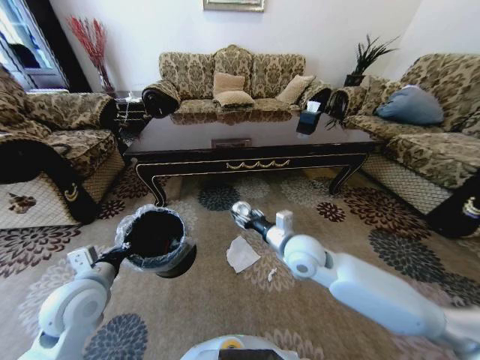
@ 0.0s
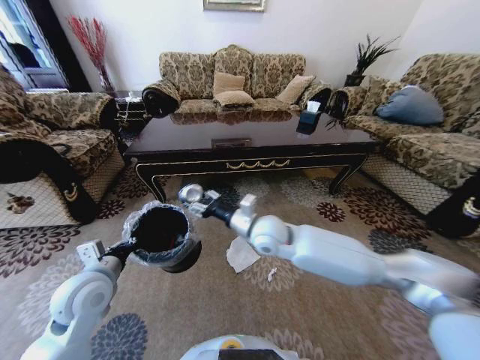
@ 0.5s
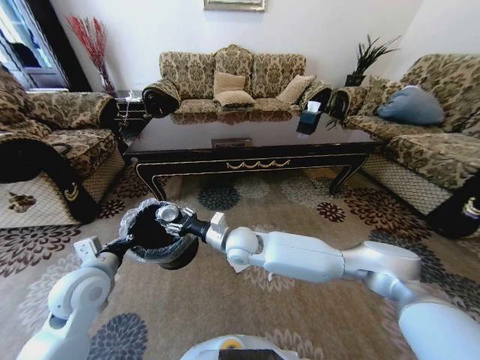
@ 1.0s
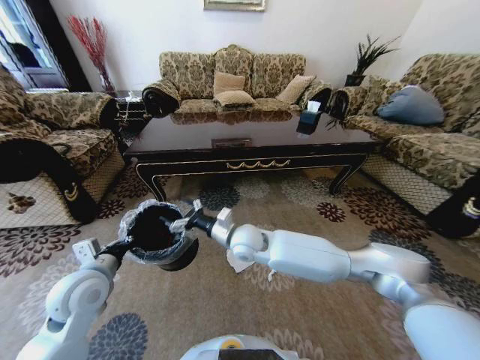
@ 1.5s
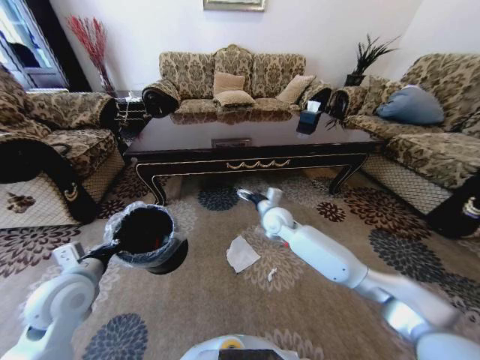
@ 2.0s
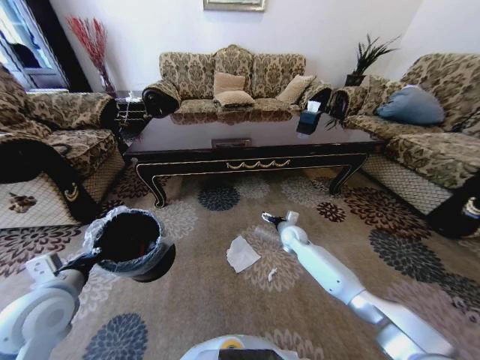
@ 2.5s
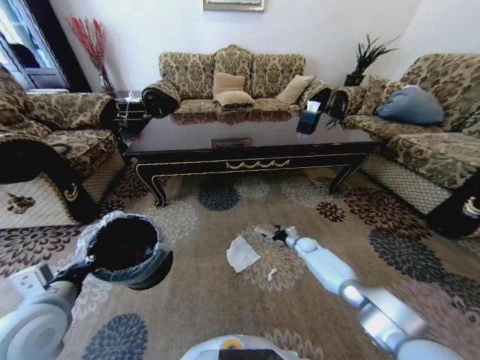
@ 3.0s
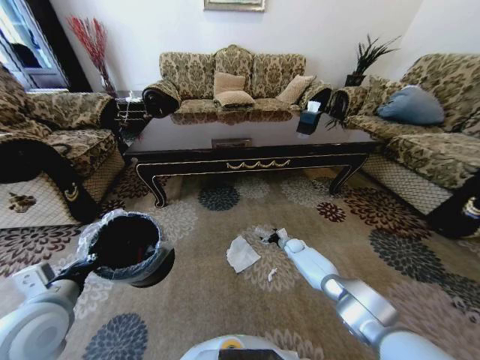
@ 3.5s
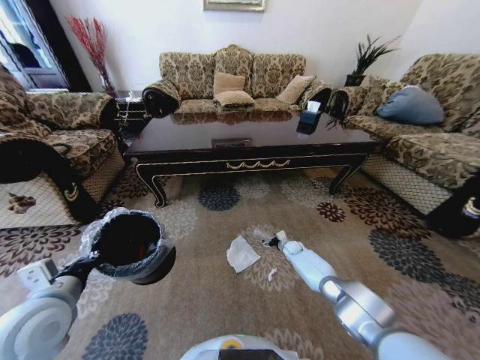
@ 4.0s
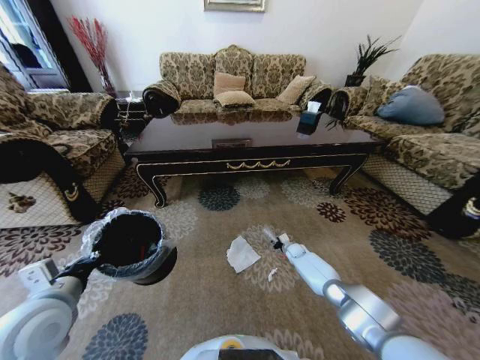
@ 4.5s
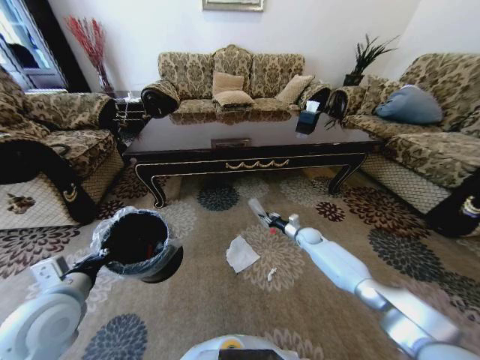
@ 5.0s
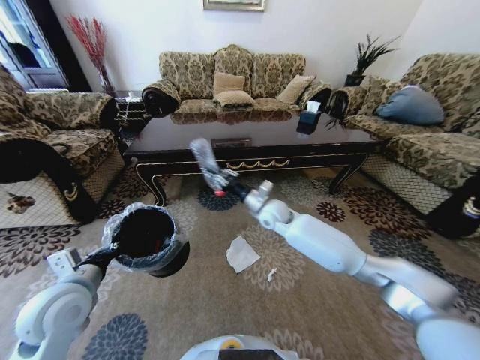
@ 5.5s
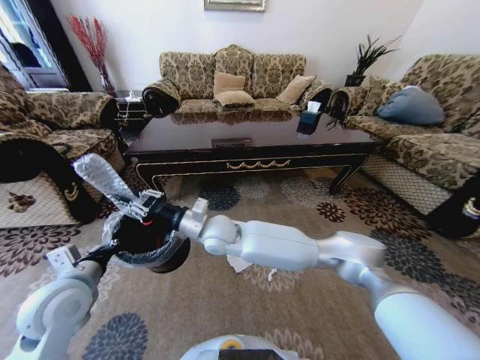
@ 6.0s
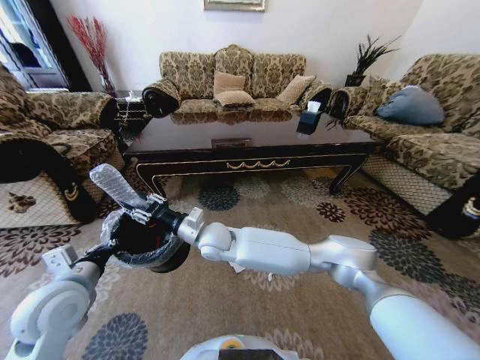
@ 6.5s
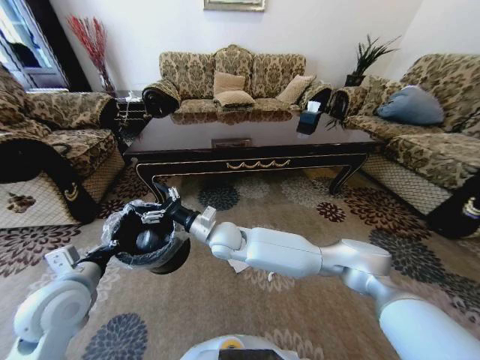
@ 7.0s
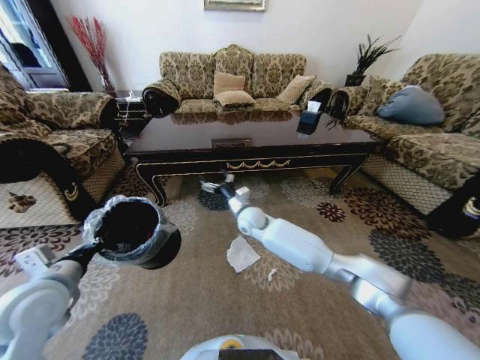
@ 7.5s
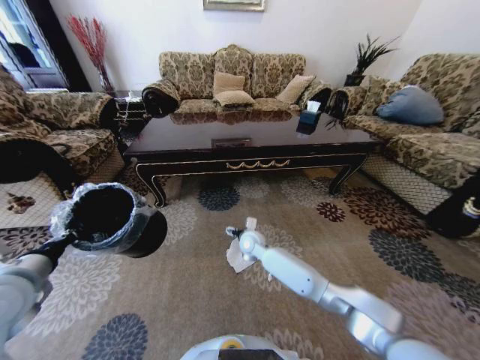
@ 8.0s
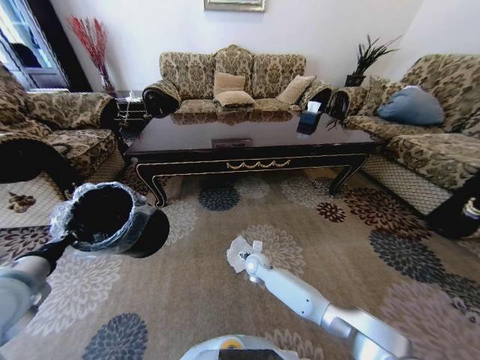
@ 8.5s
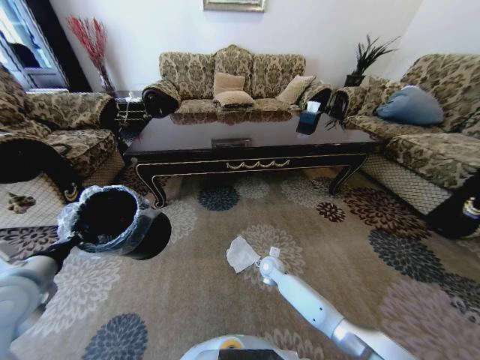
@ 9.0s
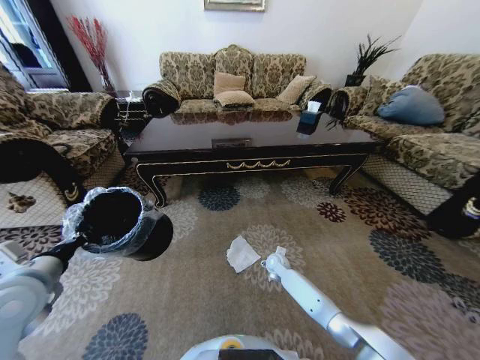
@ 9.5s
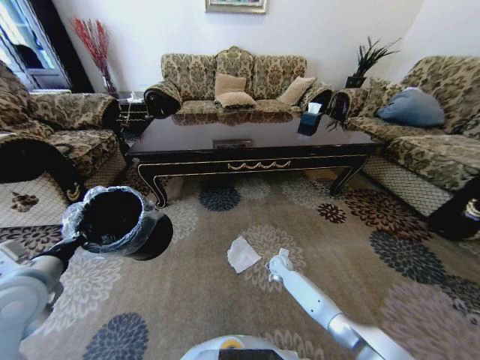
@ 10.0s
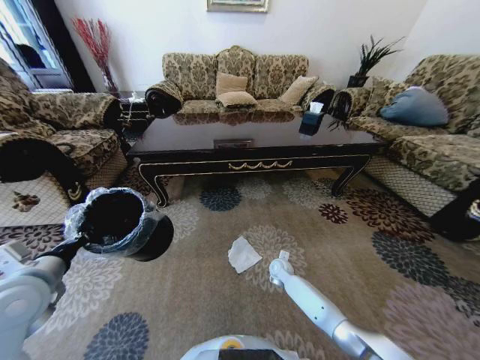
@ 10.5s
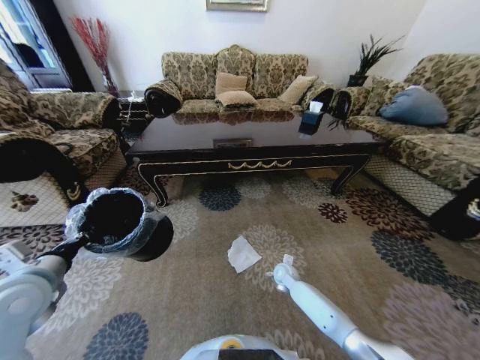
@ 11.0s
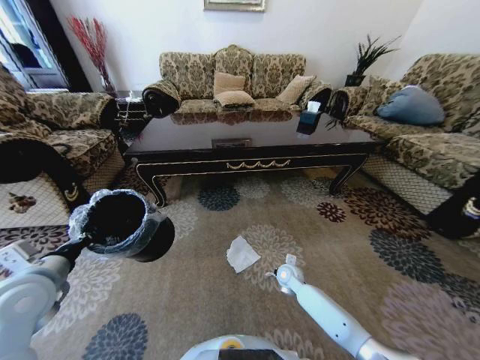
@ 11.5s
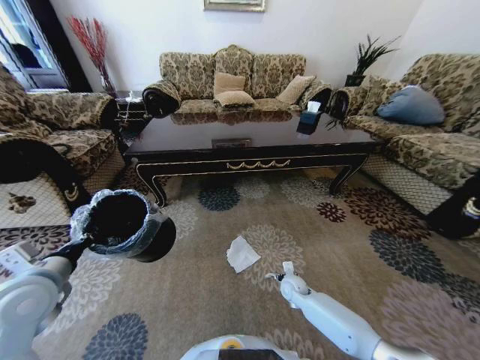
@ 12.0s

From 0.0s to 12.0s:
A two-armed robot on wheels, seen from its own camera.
Task of the whole recording: Move to the front of the table and pick up the trash from the floor, then place it into the trash bin.
From 0.0s to 2.0s: The right gripper is displaced forward by roughly 15 cm, travels to the left and back again, roughly 15 cm each way, and opens its fingers.
From 2.0s to 4.0s: The right gripper goes about 30 cm downward and to the right; the left gripper travels backward by some 5 cm.
From 4.0s to 6.0s: The right gripper goes roughly 50 cm to the left and upward, and closes up.
From 6.0s to 8.0s: The left gripper shifts roughly 10 cm to the left and upward; the right gripper shifts about 20 cm downward, to the right and forward, and opens up.
From 8.0s to 10.0s: The right gripper shifts some 20 cm downward and to the right.
From 10.0s to 12.0s: The right gripper shifts about 10 cm backward, and closes, then reopens.

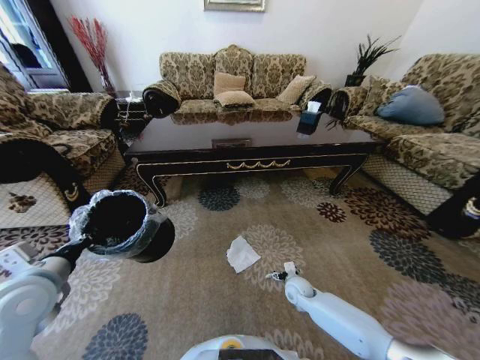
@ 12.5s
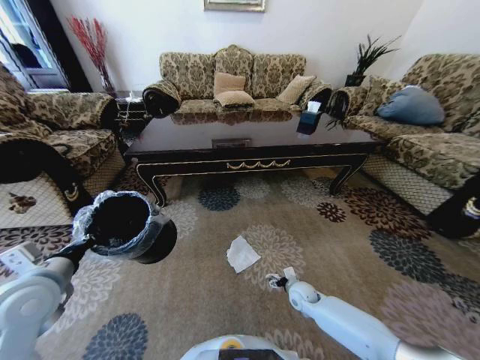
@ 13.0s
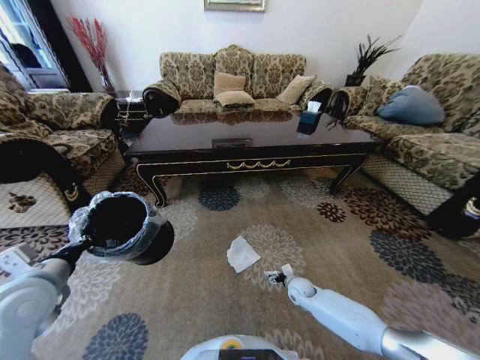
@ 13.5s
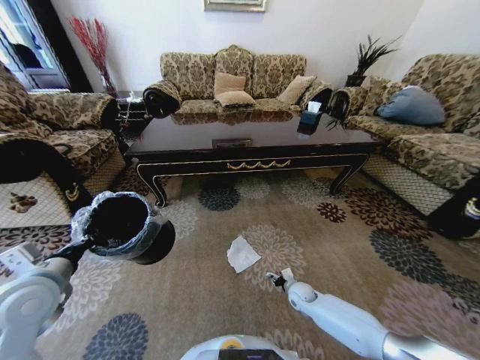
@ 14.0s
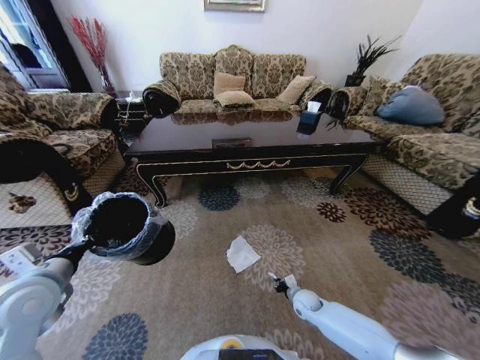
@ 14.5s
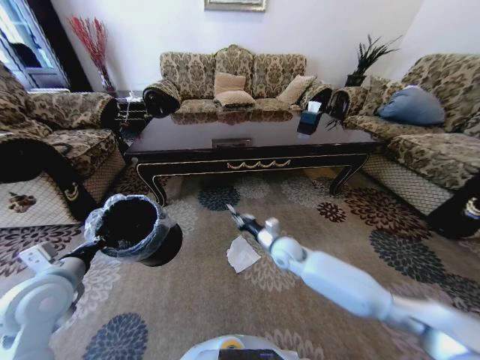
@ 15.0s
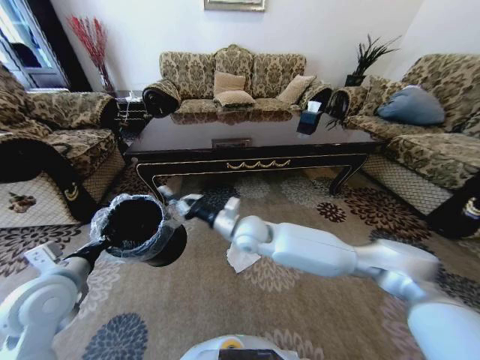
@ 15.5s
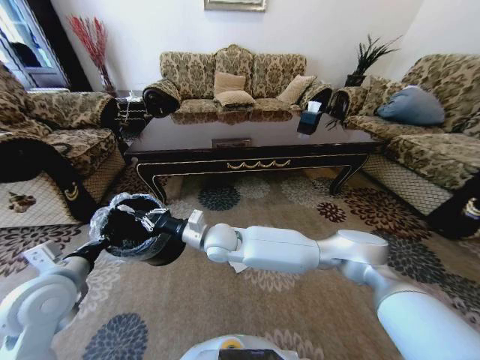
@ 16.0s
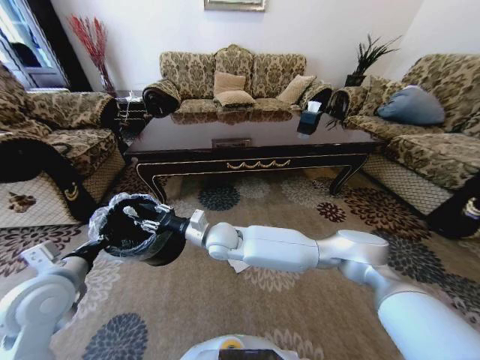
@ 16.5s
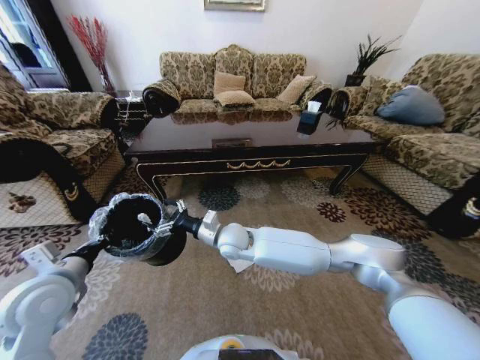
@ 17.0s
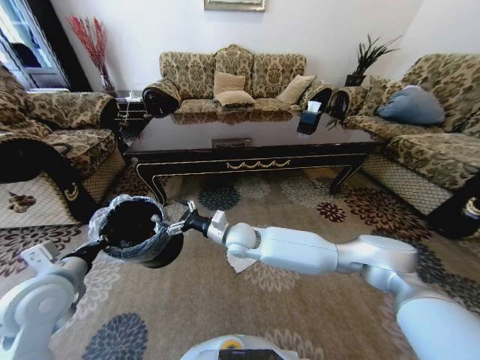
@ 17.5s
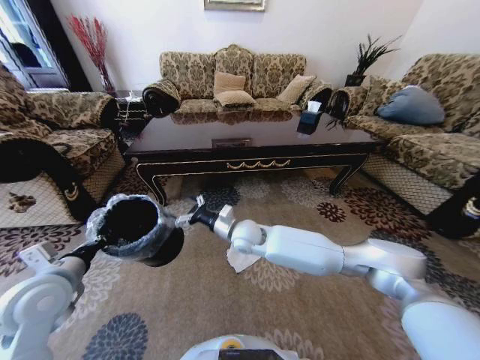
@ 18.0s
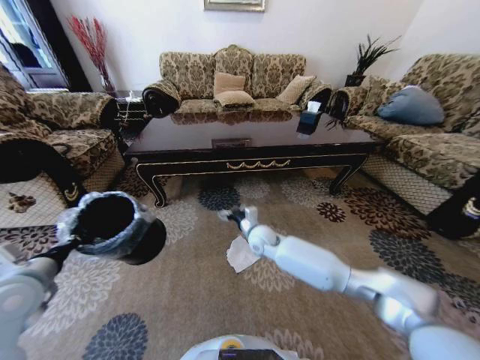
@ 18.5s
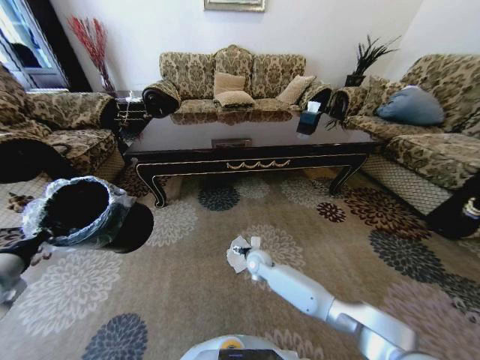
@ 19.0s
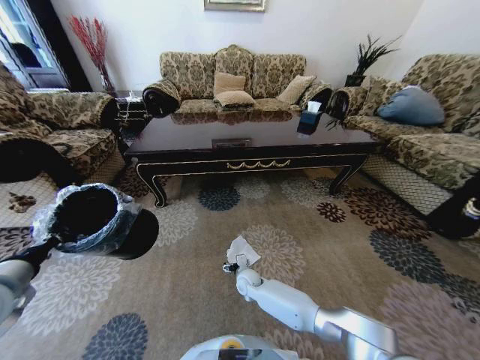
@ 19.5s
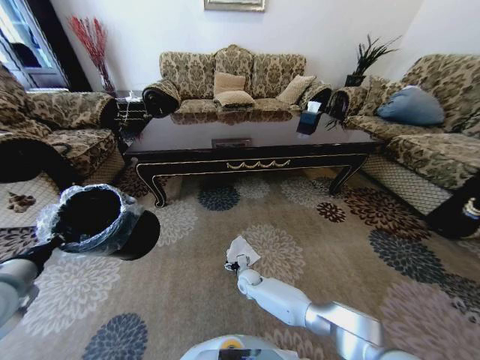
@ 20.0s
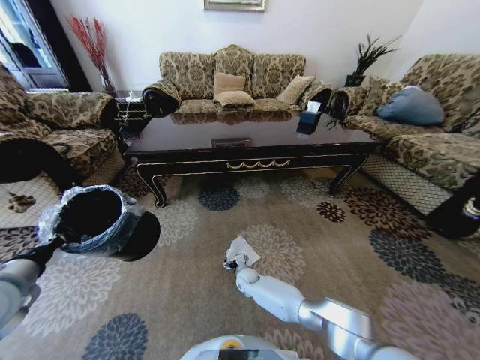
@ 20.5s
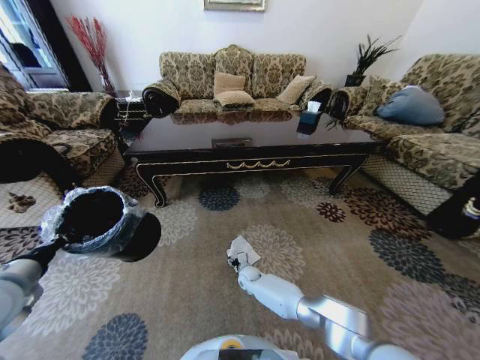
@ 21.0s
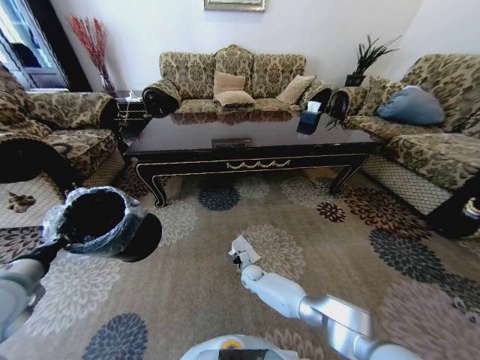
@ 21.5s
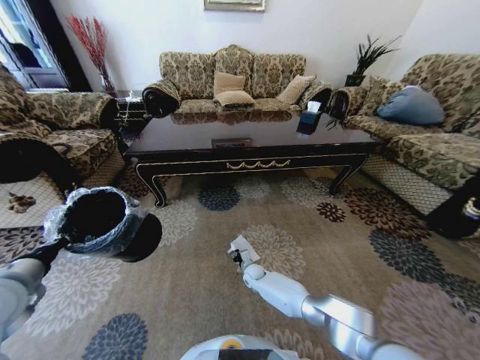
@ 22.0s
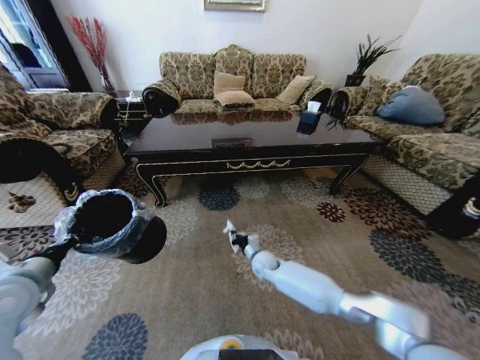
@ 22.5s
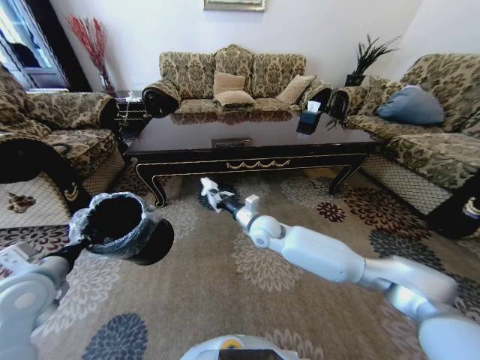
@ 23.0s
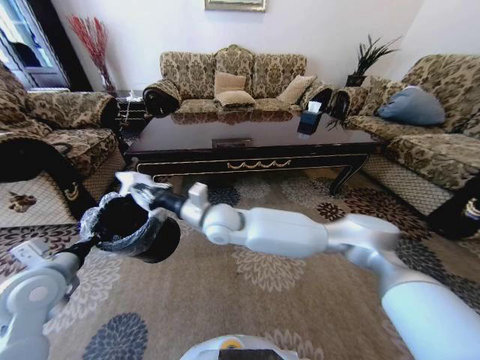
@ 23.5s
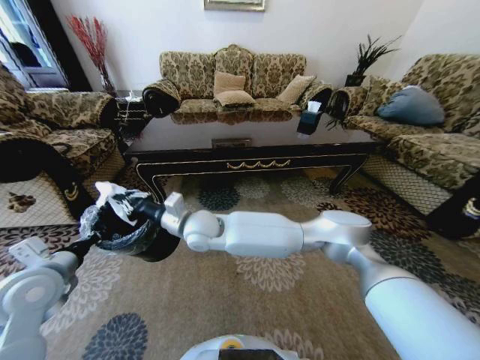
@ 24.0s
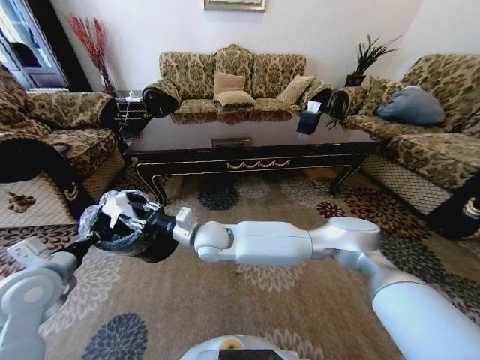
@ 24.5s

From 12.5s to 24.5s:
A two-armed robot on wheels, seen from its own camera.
Task of the whole recording: Move to the front of the table and pick up the trash from the floor, then place it into the trash bin.
From 12.5s to 14.5s: The right gripper shifts by some 5 cm, and closes.
From 14.5s to 16.5s: The right gripper goes approximately 40 cm to the left and upward, and opens its fingers.
From 16.5s to 18.5s: The left gripper goes approximately 5 cm to the left, while the right gripper is displaced to the right, downward and forward by about 15 cm, and opens.
From 18.5s to 20.5s: The right gripper shifts some 25 cm downward.
From 20.5s to 22.5s: The right gripper shifts about 15 cm upward and to the right, and closes its fingers.
From 22.5s to 24.5s: The right gripper shifts approximately 30 cm upward and to the left, and opens up.

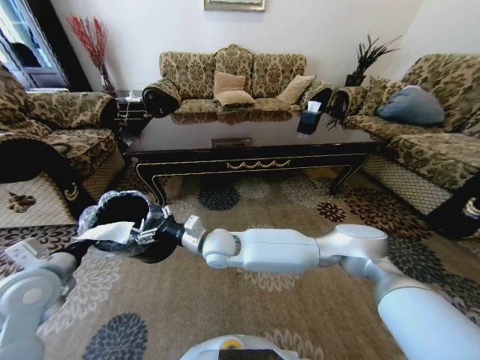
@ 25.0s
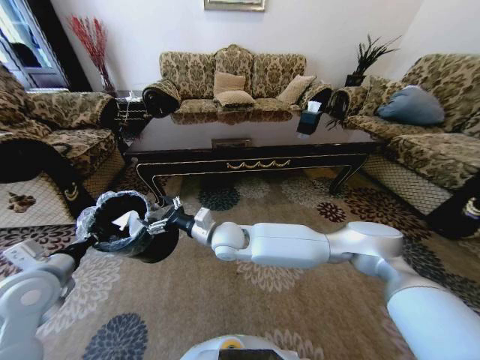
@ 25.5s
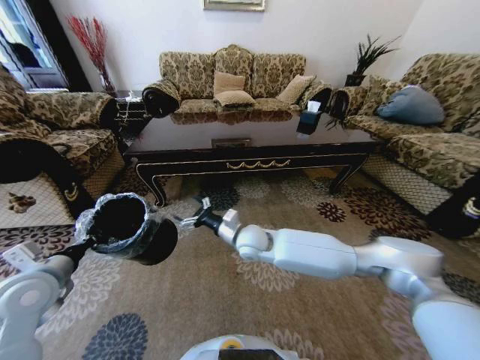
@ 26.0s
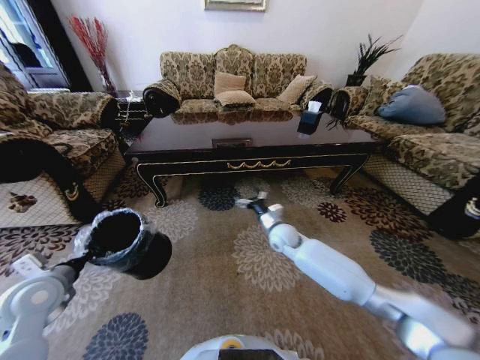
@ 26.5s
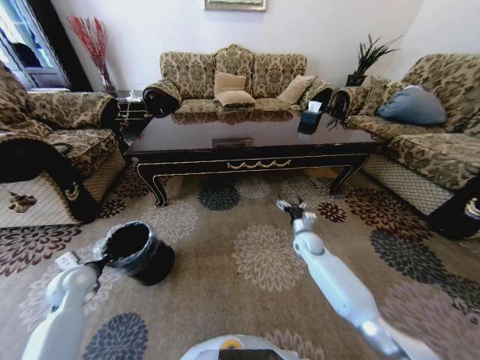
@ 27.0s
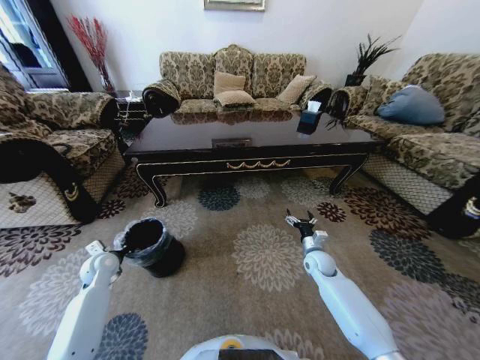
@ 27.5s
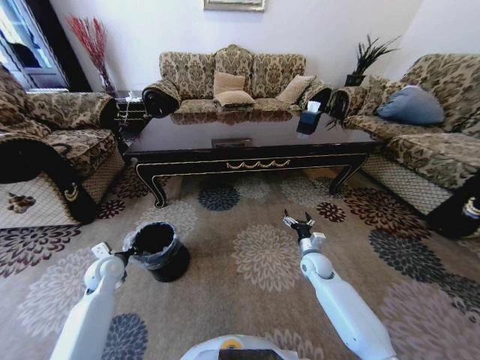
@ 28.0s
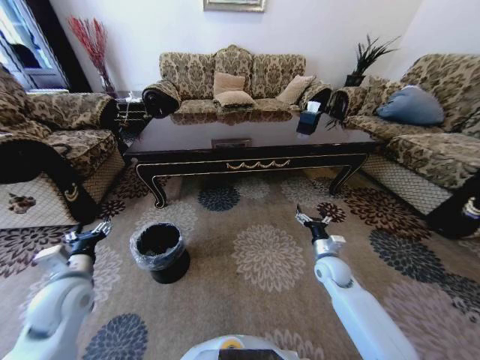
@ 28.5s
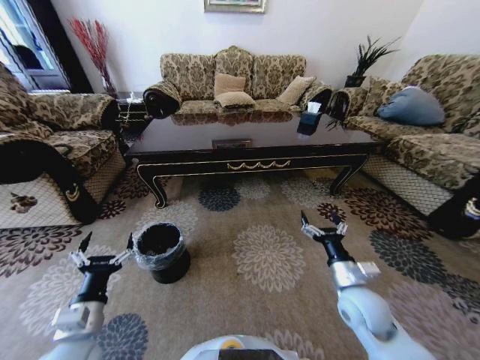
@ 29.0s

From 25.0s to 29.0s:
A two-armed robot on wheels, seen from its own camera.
Task of the whole recording: Move to the front of the table and pick up the trash from the floor, then place it into the trash bin.
From 25.0s to 27.0s: The left gripper travels downward and forward by roughly 15 cm. The right gripper heads to the right and downward, covering approximately 35 cm.
From 27.0s to 29.0s: The right gripper goes approximately 25 cm backward. The left gripper travels backward and to the right by roughly 20 cm, and opens its fingers.
